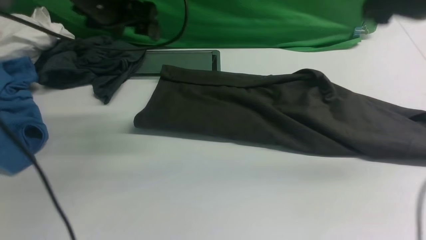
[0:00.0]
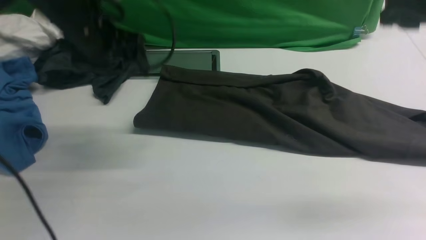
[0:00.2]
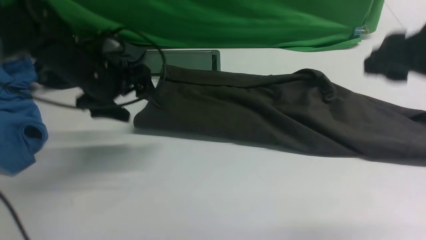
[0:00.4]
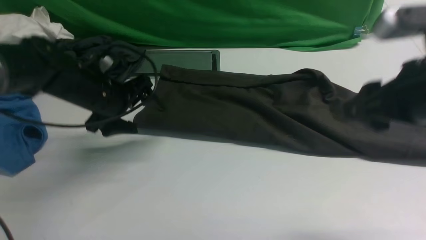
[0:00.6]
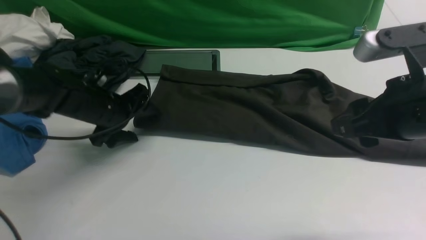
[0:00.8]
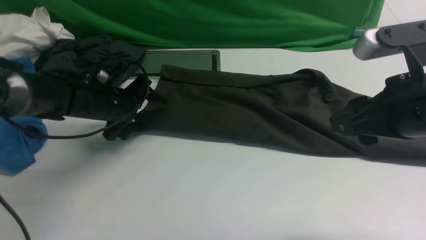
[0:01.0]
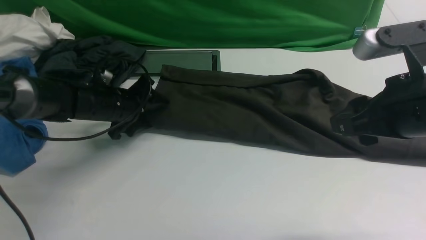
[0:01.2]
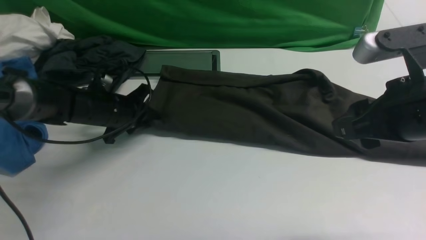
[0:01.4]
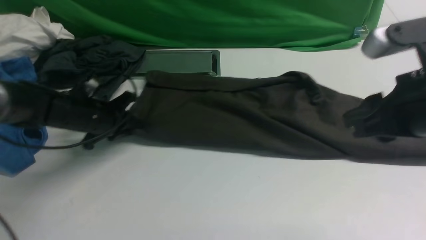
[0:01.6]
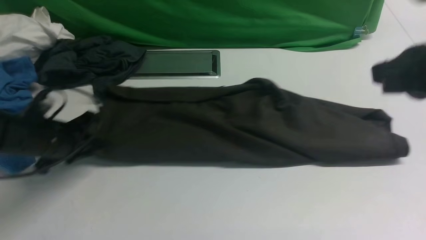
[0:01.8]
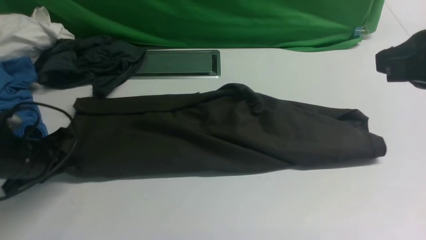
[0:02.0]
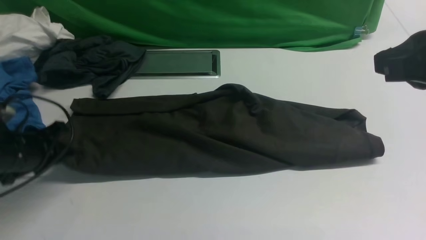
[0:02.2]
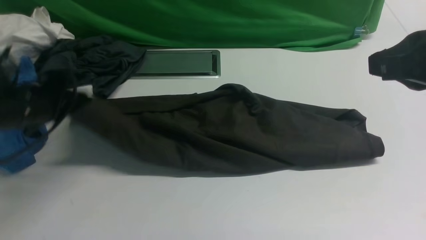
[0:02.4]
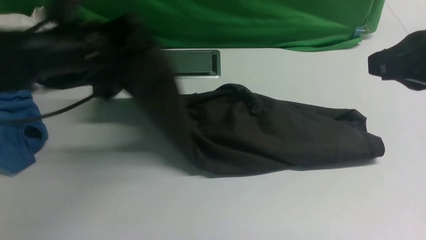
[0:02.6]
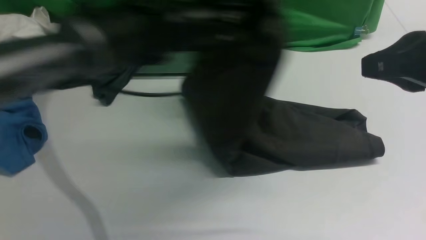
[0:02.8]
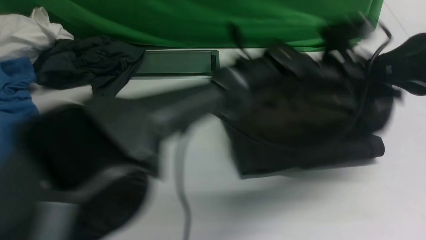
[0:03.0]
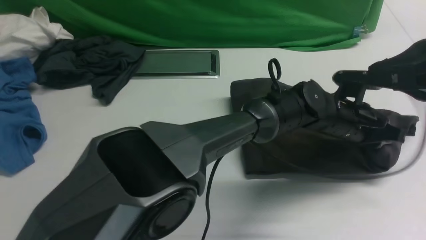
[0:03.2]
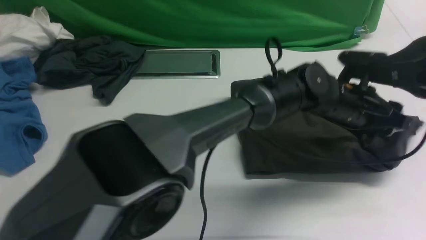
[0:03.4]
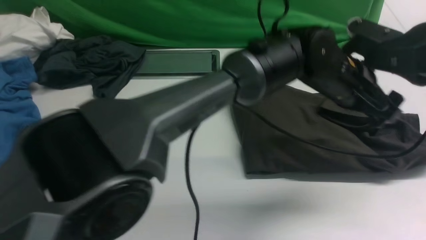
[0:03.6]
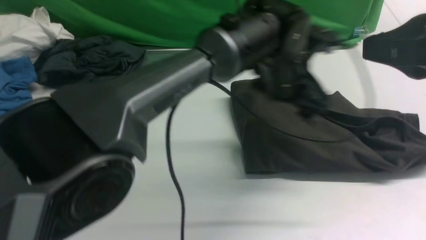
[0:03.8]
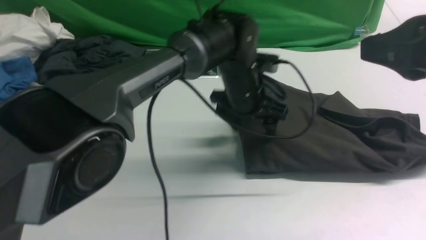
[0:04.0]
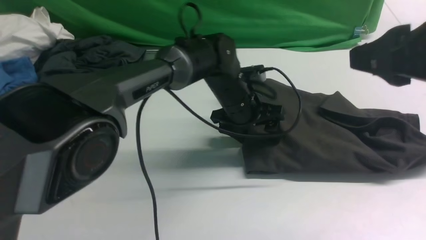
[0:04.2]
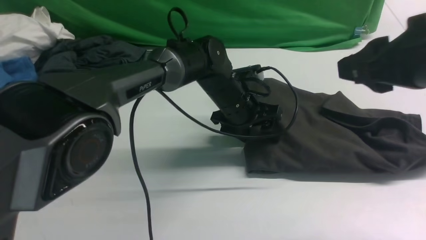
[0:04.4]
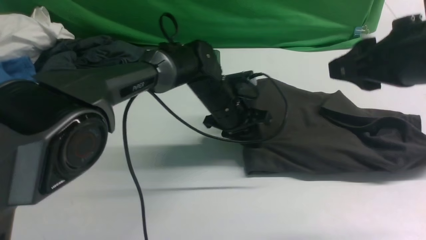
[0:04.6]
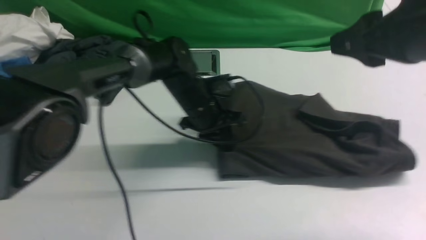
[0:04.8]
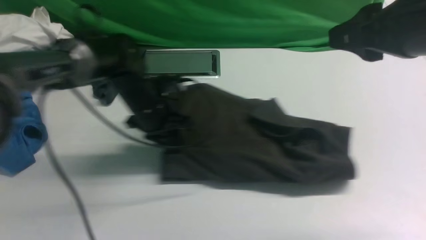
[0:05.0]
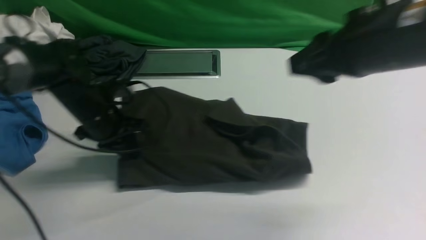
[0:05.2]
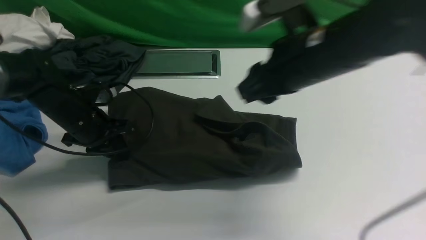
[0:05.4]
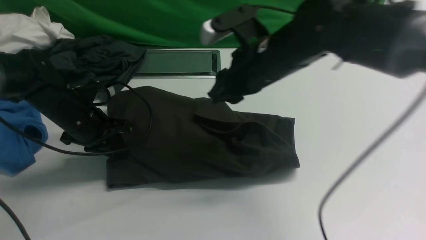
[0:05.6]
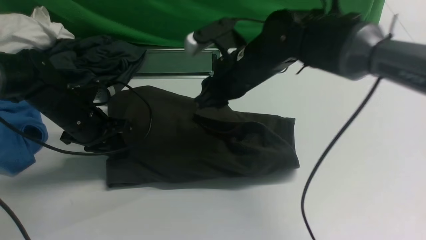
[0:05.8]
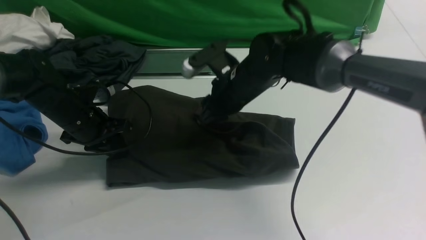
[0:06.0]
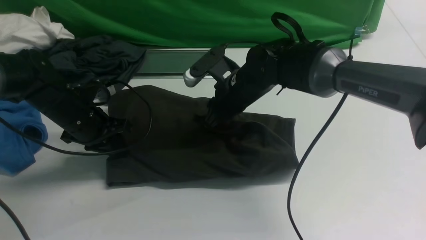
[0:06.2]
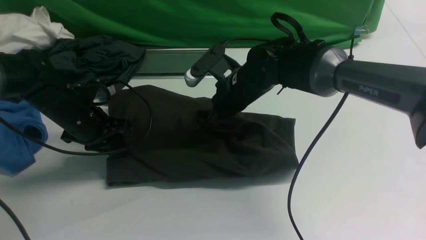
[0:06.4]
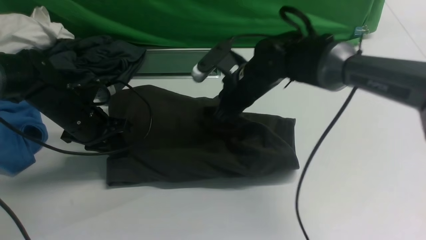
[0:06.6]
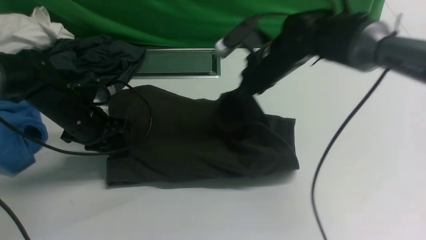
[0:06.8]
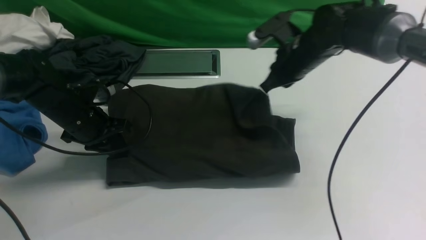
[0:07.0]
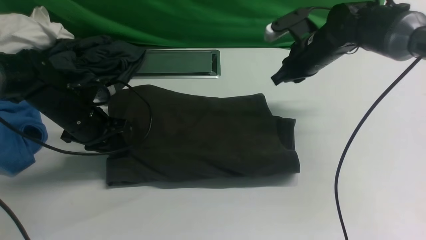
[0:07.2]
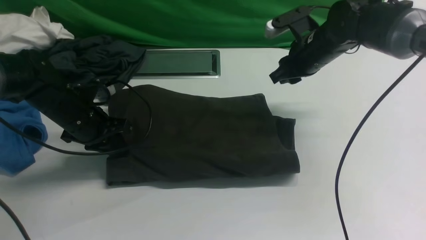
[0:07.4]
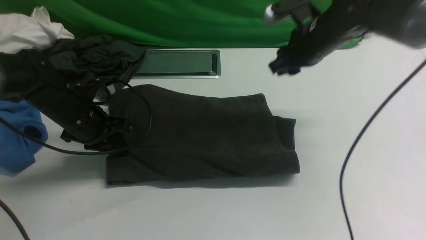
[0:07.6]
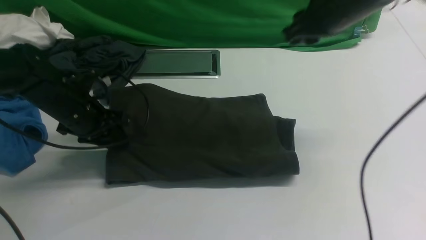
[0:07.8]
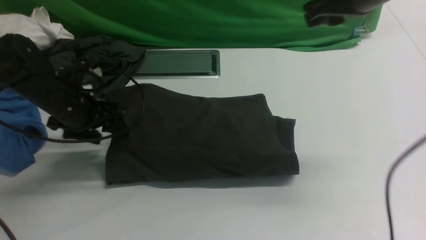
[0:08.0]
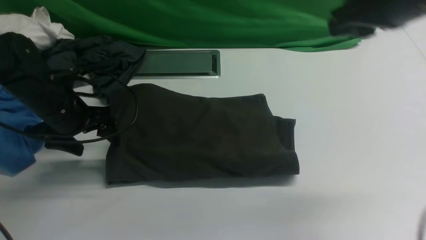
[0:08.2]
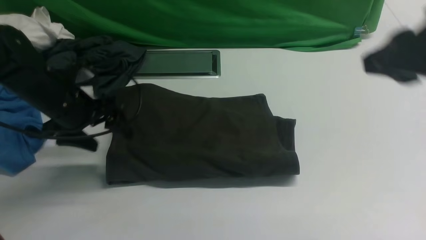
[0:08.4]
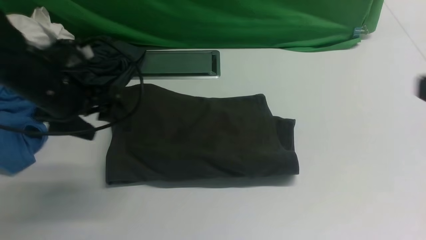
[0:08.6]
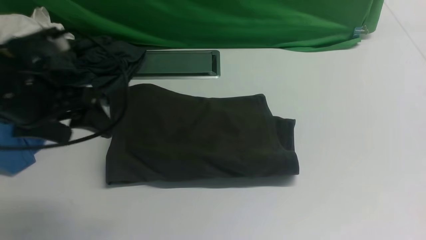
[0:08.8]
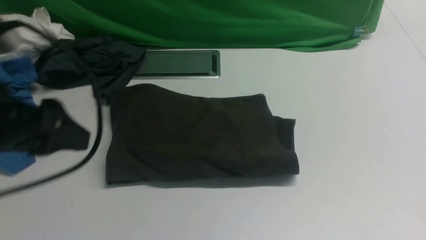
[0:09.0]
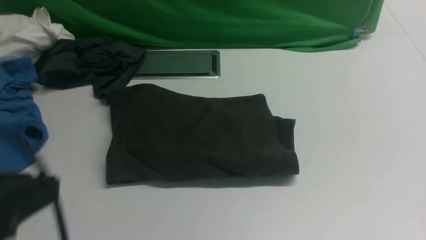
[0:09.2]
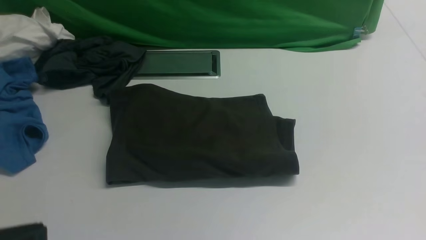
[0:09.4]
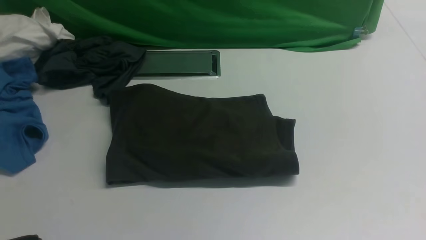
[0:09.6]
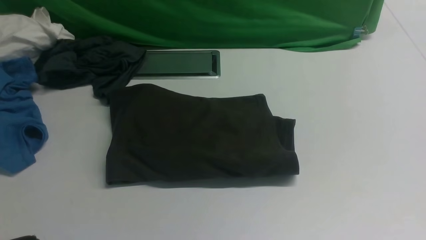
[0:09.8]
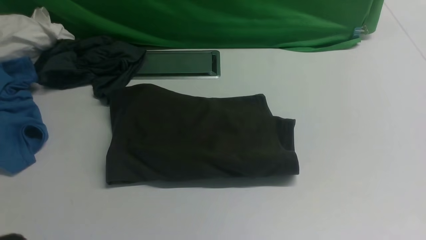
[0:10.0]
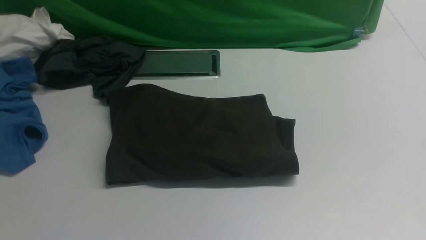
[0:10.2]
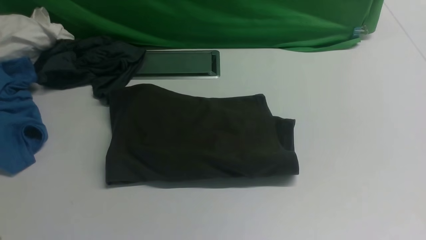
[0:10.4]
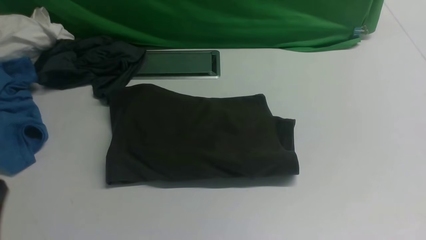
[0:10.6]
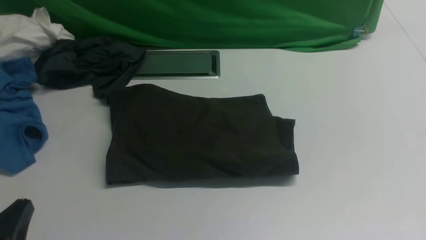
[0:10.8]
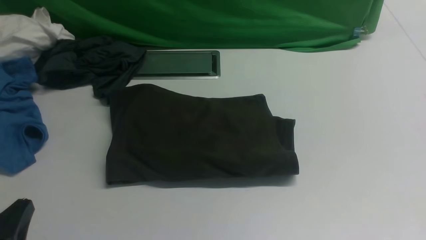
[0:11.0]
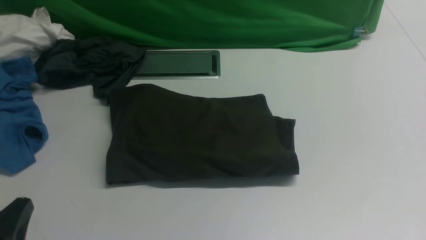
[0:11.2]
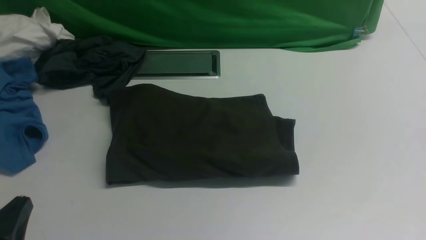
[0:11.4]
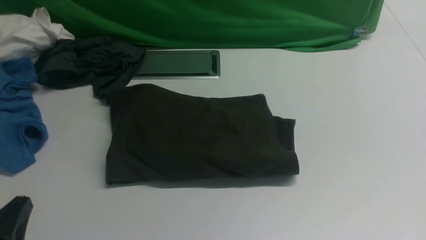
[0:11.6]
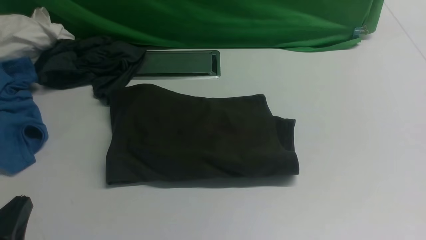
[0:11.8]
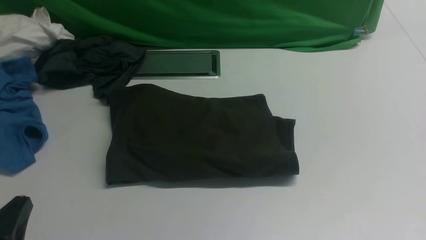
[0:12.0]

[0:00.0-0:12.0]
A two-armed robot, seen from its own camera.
Step, 0:00.0 to 0:02.0: Hold the left edge of the fabric with your left arm.
Step, 0:02.2 to 0:03.8: Drag the left edge of the fabric to the left with your left arm and fold it to the right edge.
0:00.0 to 0:01.6: The right gripper shifts some 15 cm backward, and closes up. The left gripper heads downward, backward and to the left, covering roughly 20 cm, and closes.
0:01.6 to 0:03.0: The right gripper closes. Meanwhile the left gripper travels to the right by approximately 40 cm.
0:03.0 to 0:04.4: The right gripper opens; the left gripper is displaced to the left and downward by approximately 15 cm, and opens.
0:04.4 to 0:06.0: The right gripper goes roughly 30 cm to the left, downward and forward; the left gripper moves to the left, some 25 cm, and closes up.
0:06.0 to 0:07.6: The right gripper travels to the right and upward by some 15 cm, and closes, then opens again.
0:07.6 to 0:09.0: The left gripper heads backward and upward, covering about 30 cm, and opens up; the right gripper shifts about 40 cm backward, and closes its fingers.
0:09.0 to 0:10.4: The left gripper heads backward and downward, covering about 15 cm, and closes up.
0:10.4 to 0:12.0: The left gripper heads downward, covering some 10 cm.

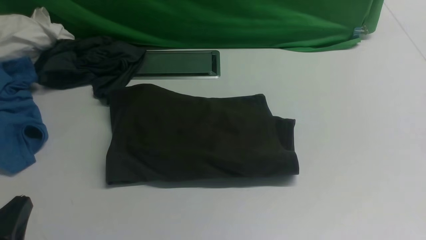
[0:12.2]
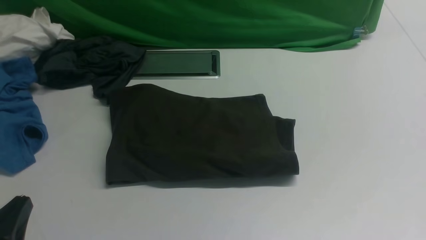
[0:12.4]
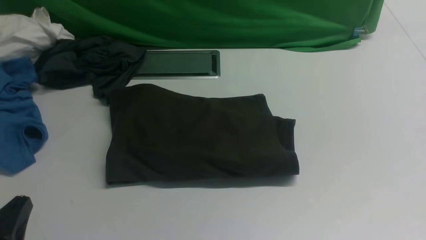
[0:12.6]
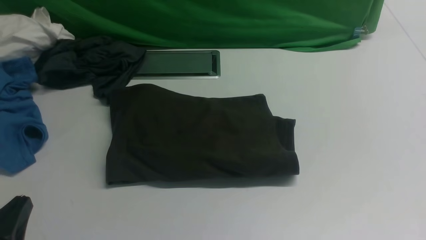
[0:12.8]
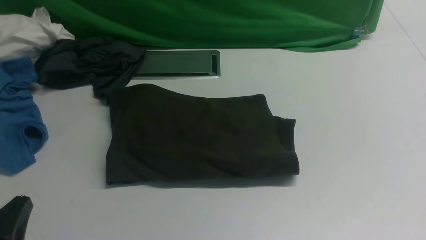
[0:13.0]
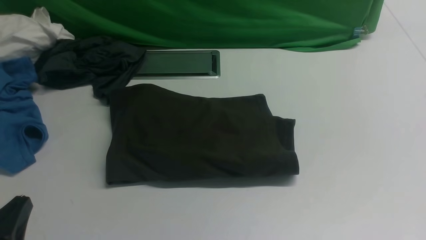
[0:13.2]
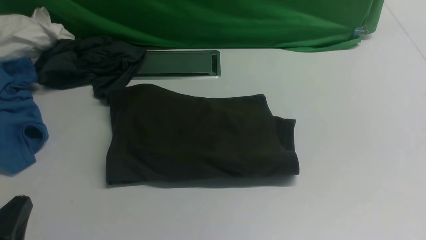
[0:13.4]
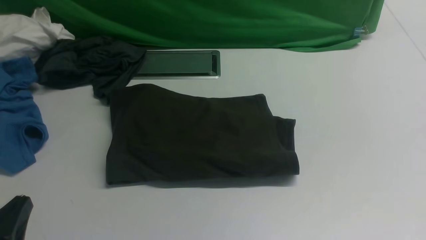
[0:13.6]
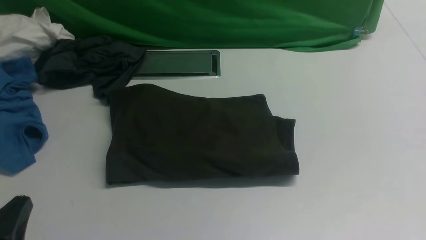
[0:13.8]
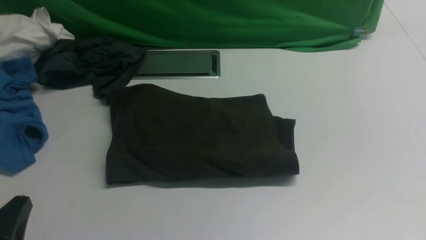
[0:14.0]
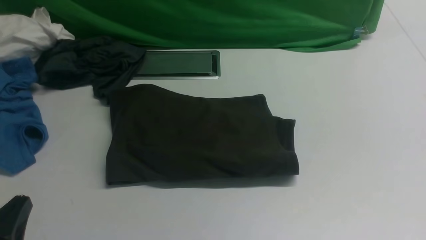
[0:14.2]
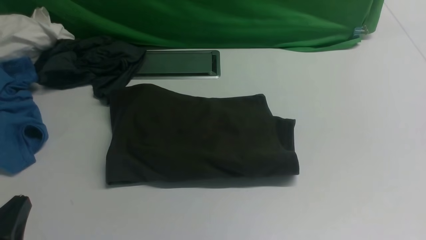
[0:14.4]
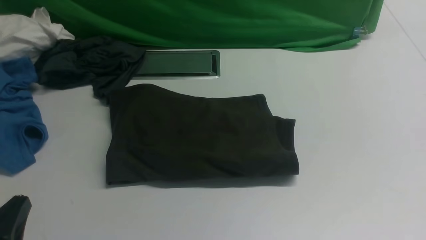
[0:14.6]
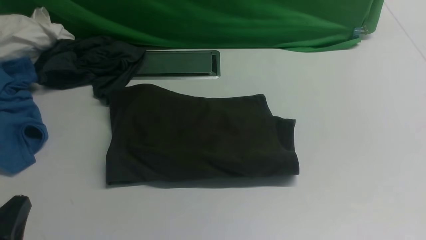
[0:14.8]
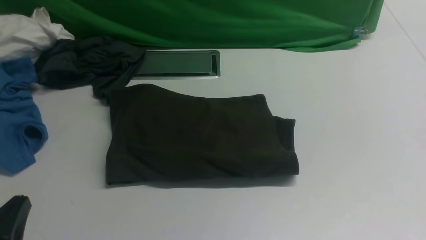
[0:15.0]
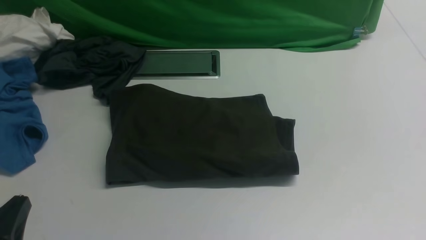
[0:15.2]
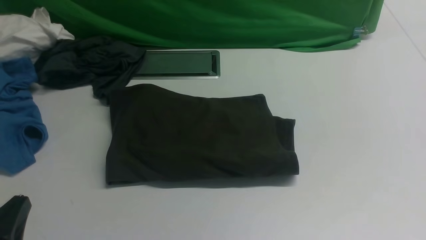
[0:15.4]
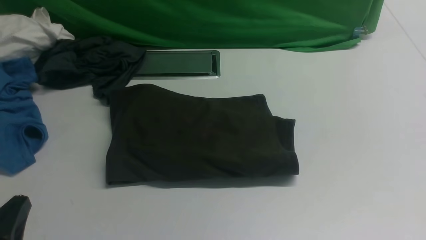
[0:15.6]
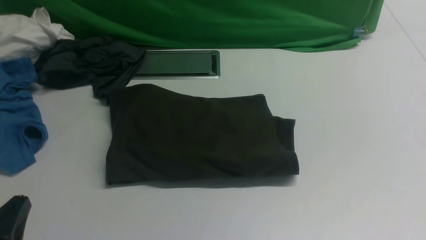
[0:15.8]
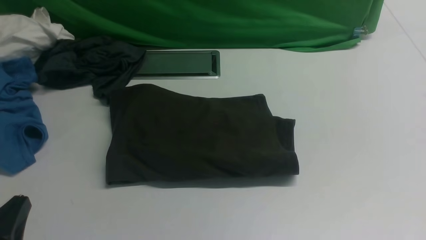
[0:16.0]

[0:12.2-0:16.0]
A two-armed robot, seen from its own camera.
0:13.4 to 0:16.0: Both grippers stay about where they are.
